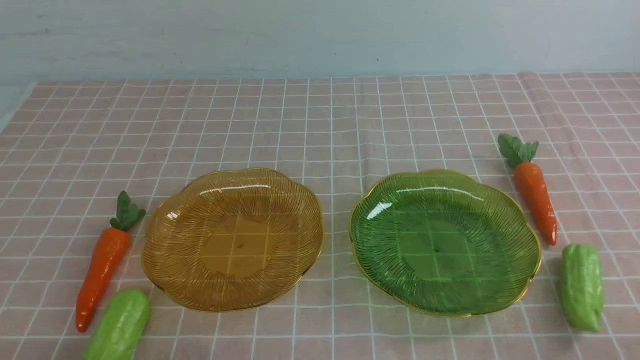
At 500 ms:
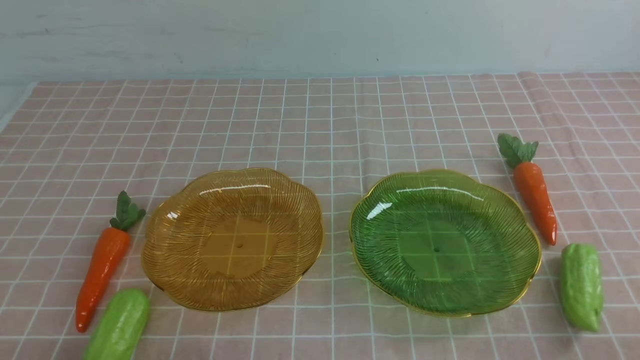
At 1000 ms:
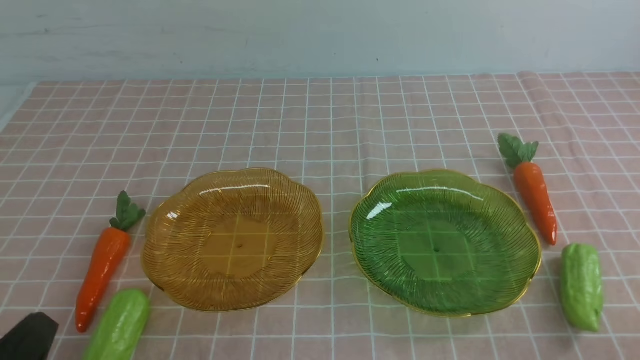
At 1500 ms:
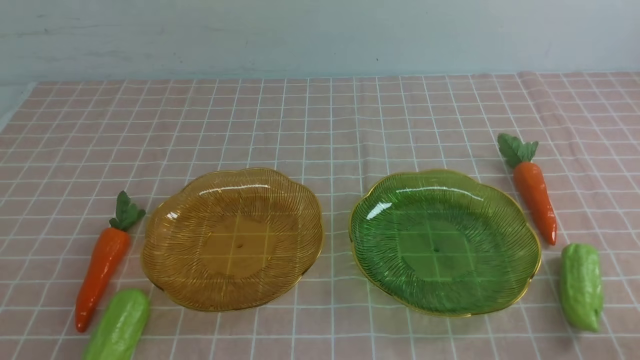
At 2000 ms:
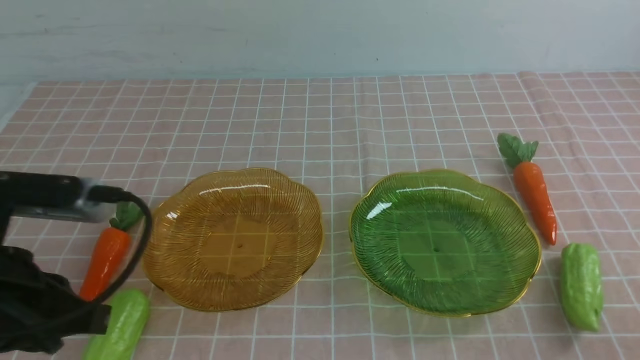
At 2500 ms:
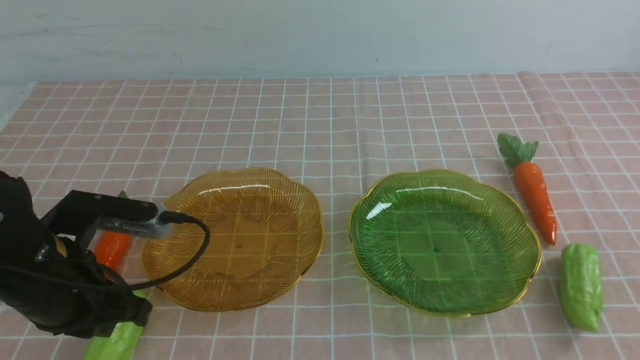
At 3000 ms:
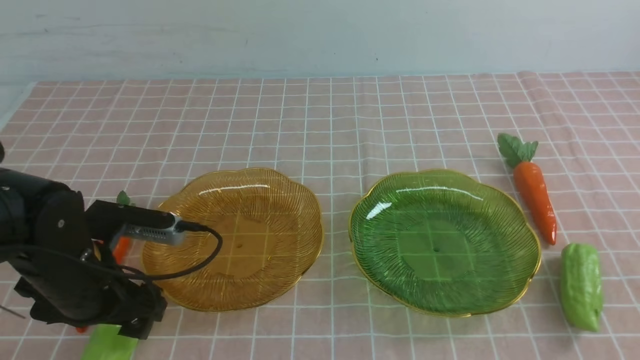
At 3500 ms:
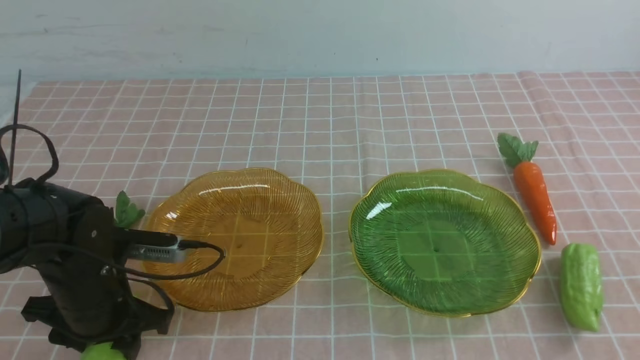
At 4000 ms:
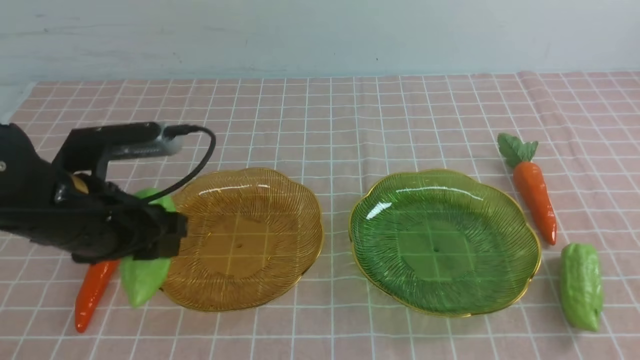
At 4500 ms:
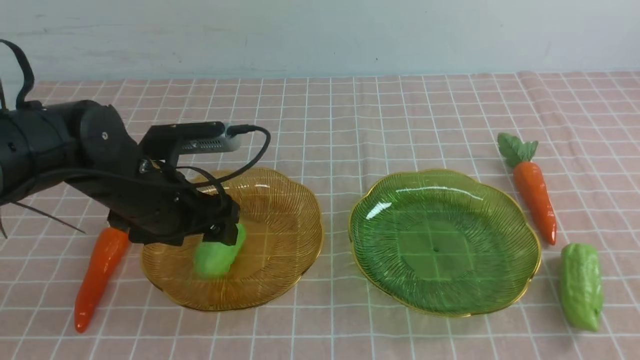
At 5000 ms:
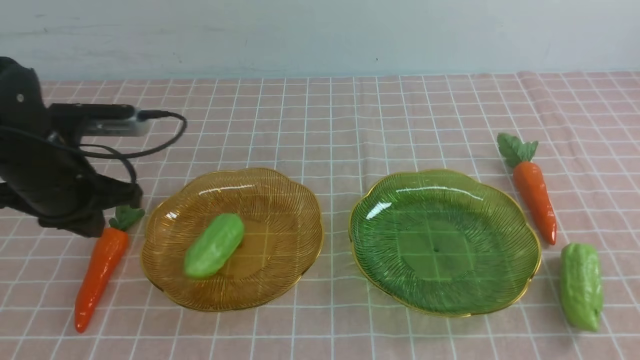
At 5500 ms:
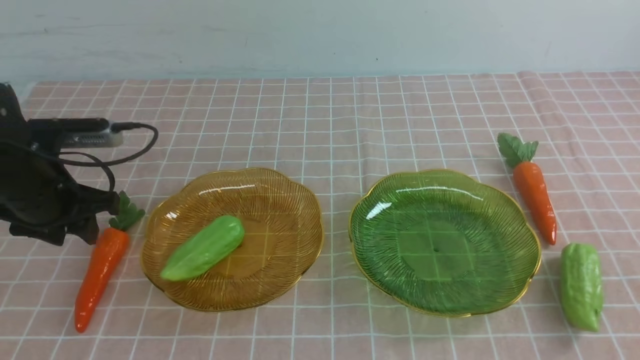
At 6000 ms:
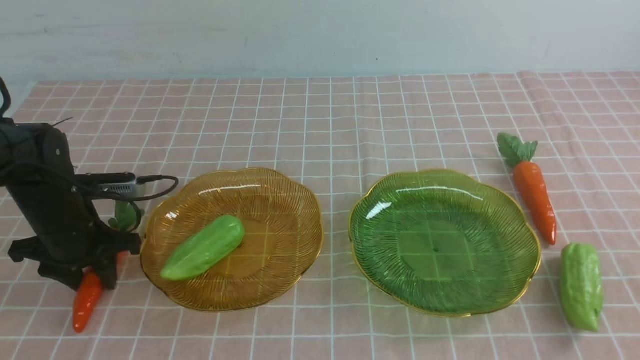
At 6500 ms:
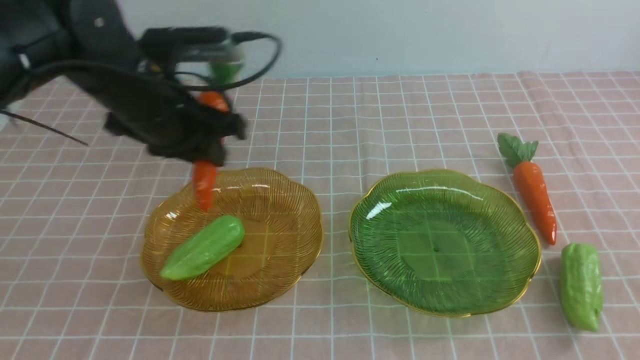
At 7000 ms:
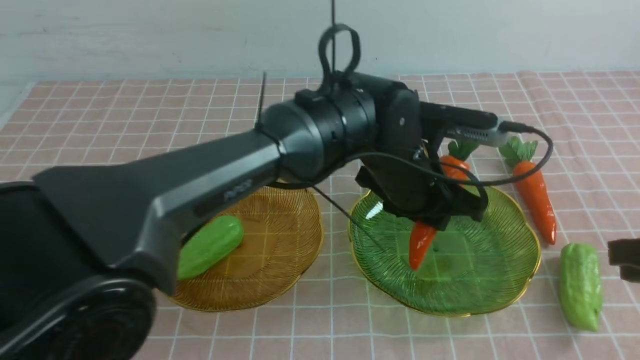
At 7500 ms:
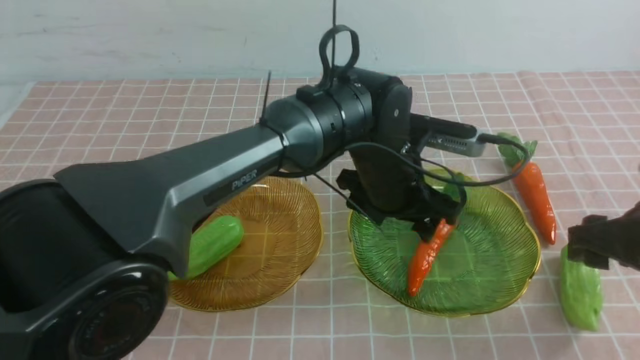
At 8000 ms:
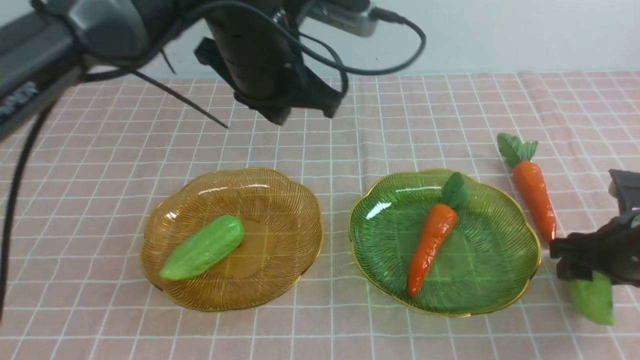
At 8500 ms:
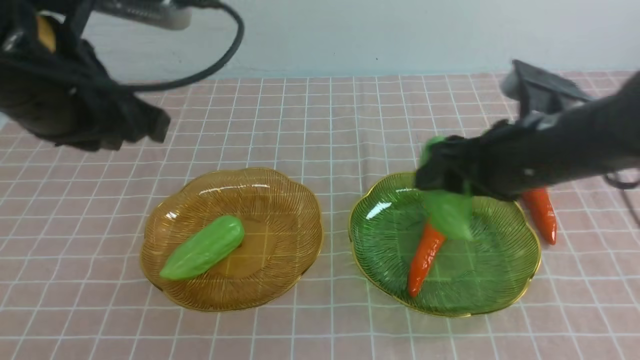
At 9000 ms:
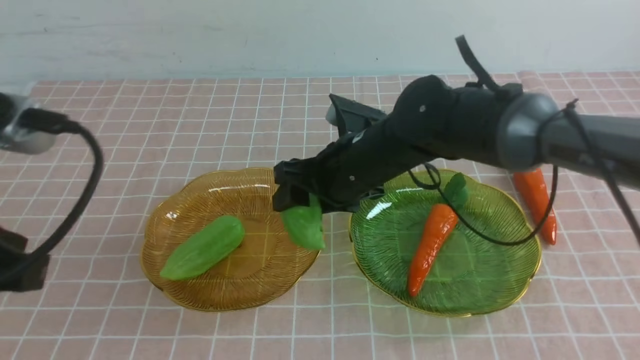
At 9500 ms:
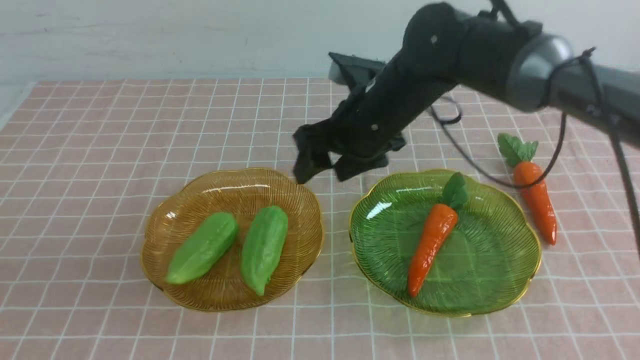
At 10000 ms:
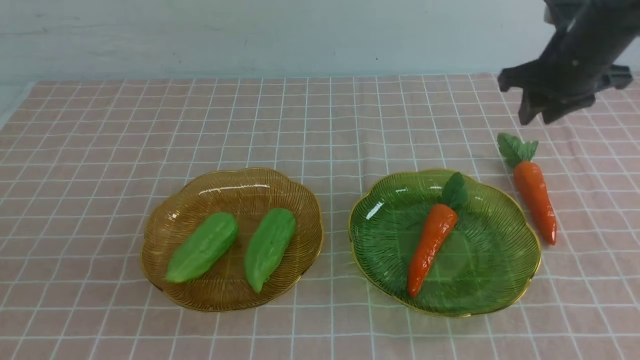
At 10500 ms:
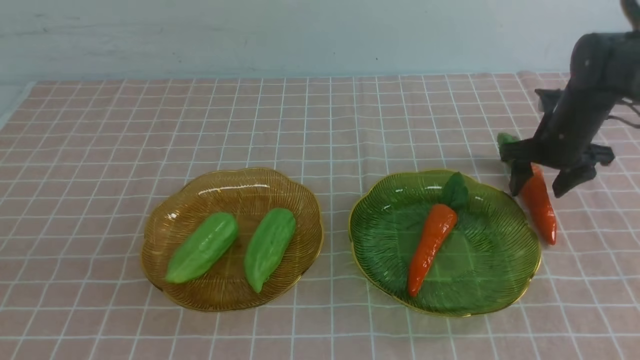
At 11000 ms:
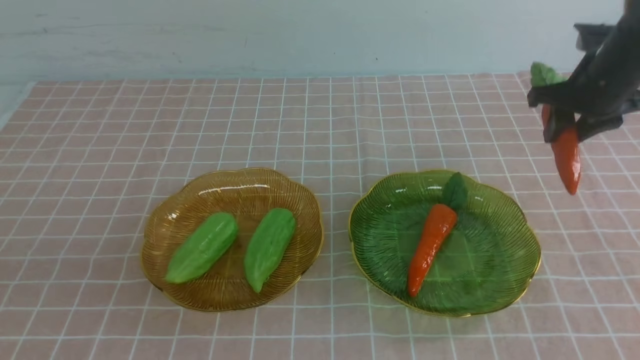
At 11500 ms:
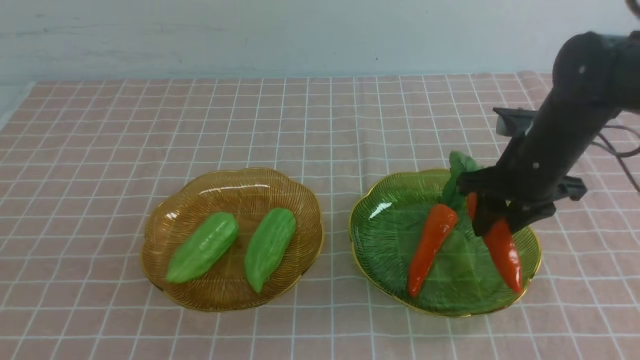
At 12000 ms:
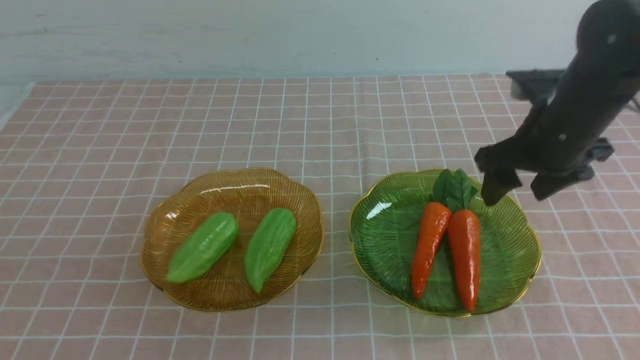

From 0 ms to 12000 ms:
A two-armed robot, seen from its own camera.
Step, from 0 ms to 4500 ms: use the left arm to grab a chayote and put it into the left plate.
Step, from 5000 ms to 7000 ms: use the left arm to grab a carrot and put it into the right plate.
Step, from 8000 ms to 9000 ms: Grab the chayote with your right arm and put it on the left plate.
Step, from 9500 ms to 11500 ms: use the right arm to grab a carrot and put it into the right plate.
From 0 ms to 2000 ms: The left gripper moves upward and forward, some 15 cm.
From 2000 ms to 4000 ms: The right gripper travels upward by about 10 cm. The left gripper moves forward and downward, about 10 cm, and opens up.
From 4000 ms to 6000 ms: The left gripper is displaced forward, to the left and downward by about 15 cm, and opens and closes again.
From 6000 ms to 8000 ms: The right gripper is displaced forward and downward by about 25 cm, and opens, while the left gripper travels to the right and upward by about 30 cm, and closes up.
From 8000 ms to 10000 ms: The left gripper is displaced backward and to the left by some 30 cm, while the right gripper goes some 15 cm forward, and reaches roughly 25 cm to the left, then returns.
From 10000 ms to 12000 ms: The right gripper moves backward, upward and to the left, approximately 15 cm.
